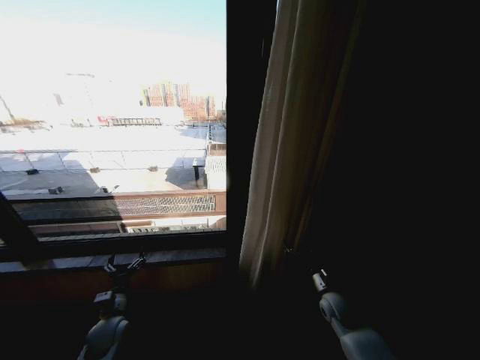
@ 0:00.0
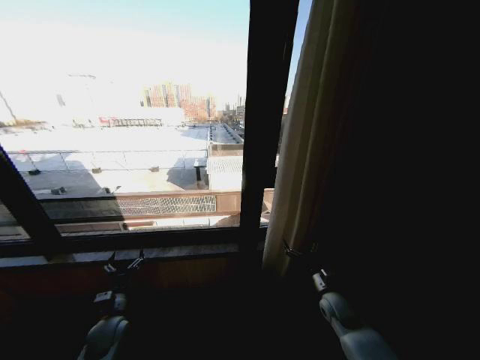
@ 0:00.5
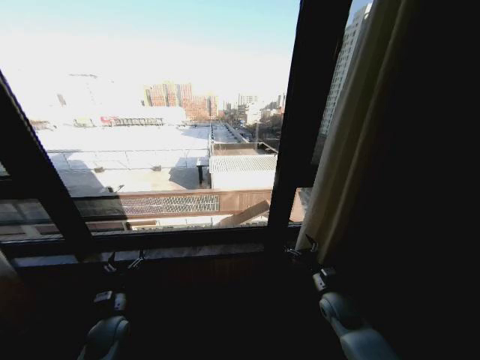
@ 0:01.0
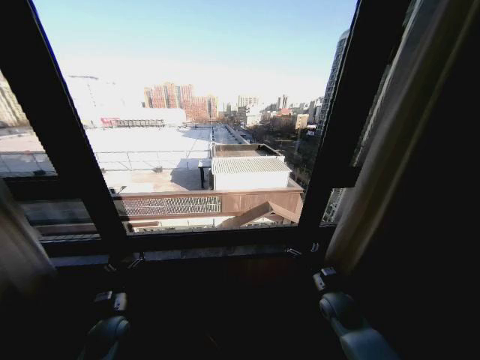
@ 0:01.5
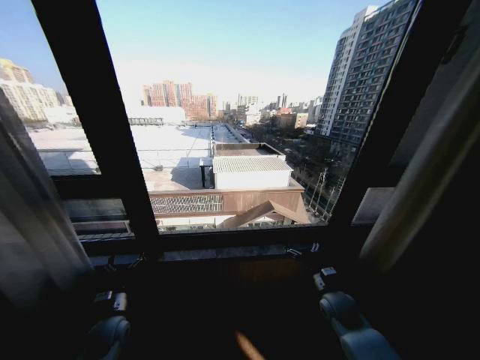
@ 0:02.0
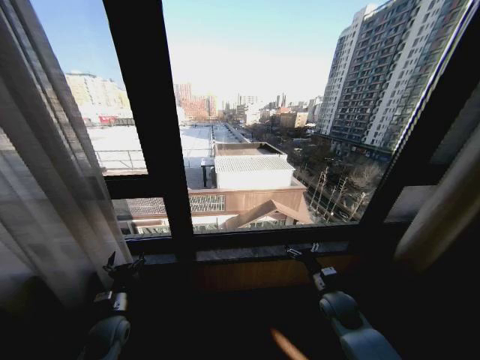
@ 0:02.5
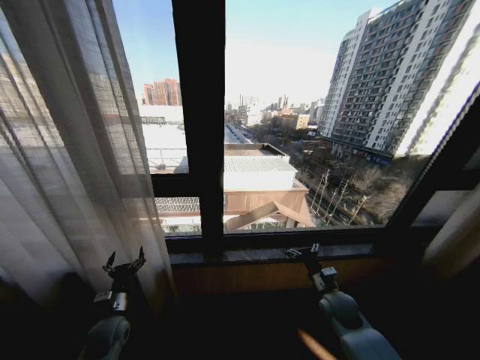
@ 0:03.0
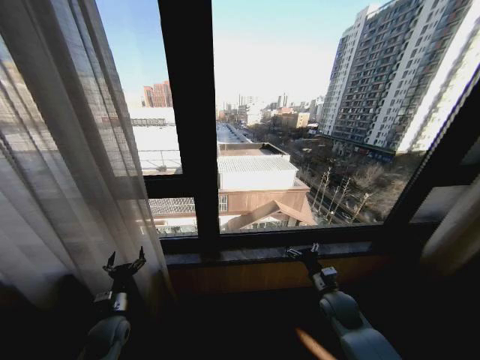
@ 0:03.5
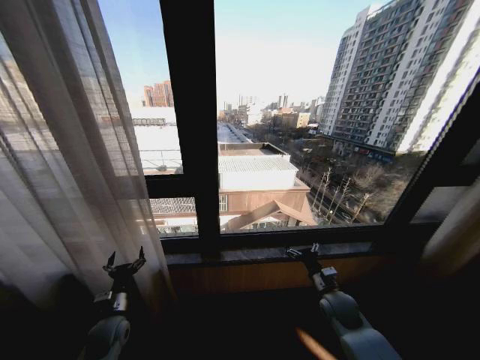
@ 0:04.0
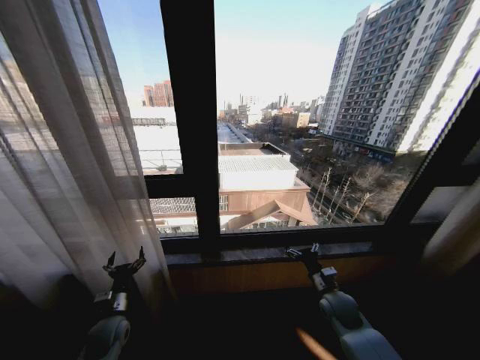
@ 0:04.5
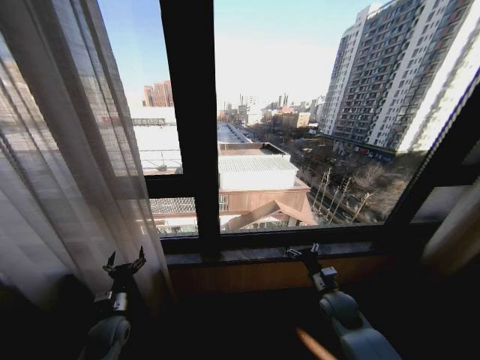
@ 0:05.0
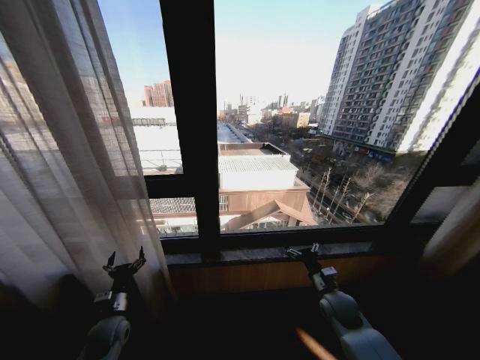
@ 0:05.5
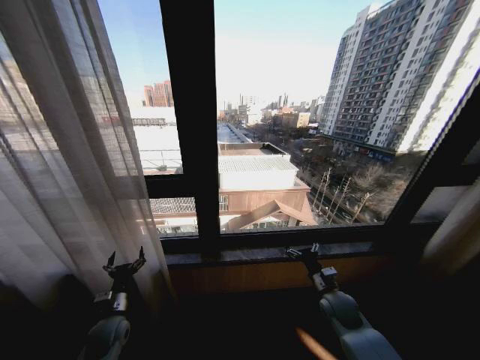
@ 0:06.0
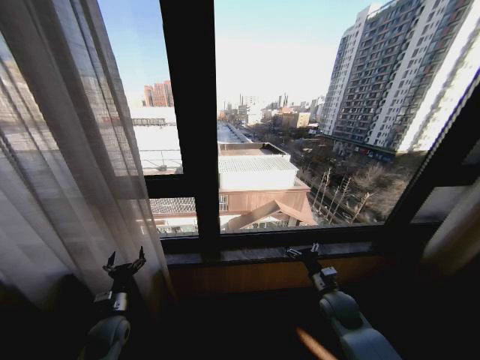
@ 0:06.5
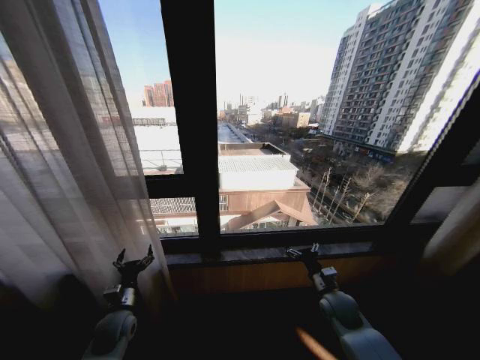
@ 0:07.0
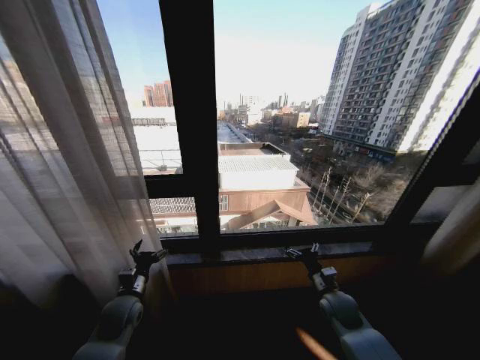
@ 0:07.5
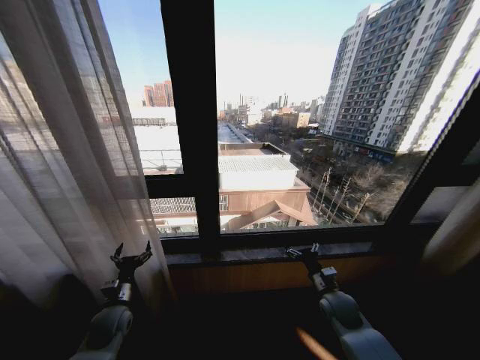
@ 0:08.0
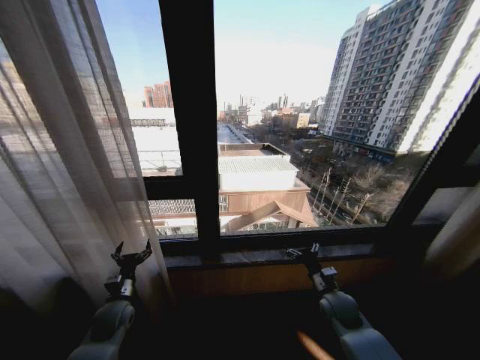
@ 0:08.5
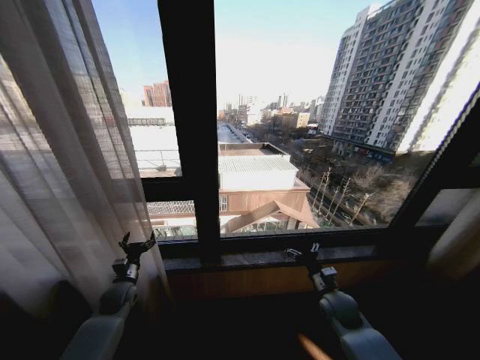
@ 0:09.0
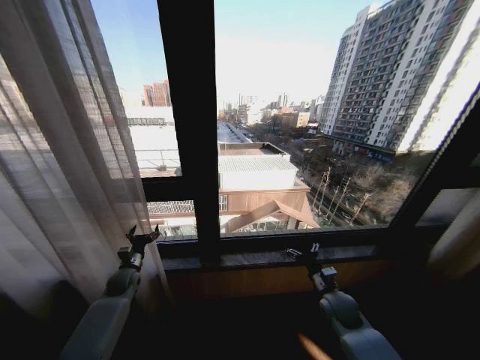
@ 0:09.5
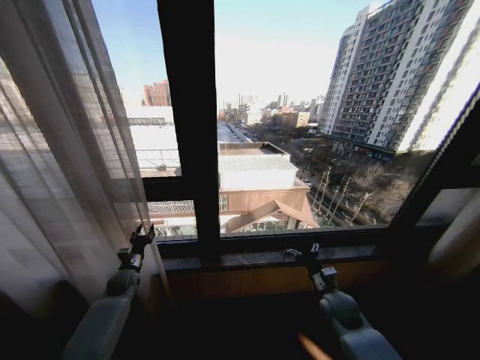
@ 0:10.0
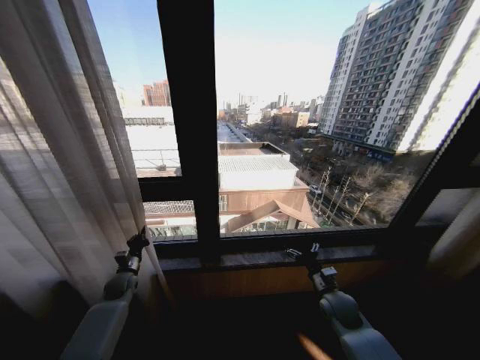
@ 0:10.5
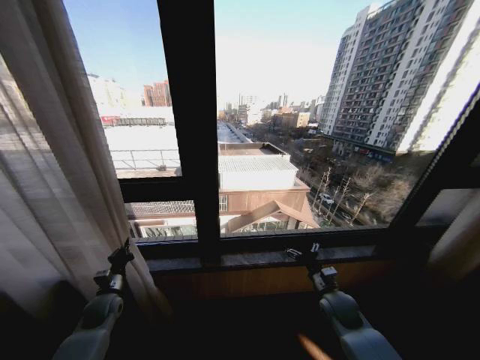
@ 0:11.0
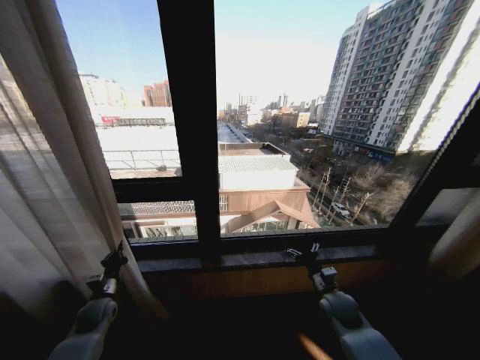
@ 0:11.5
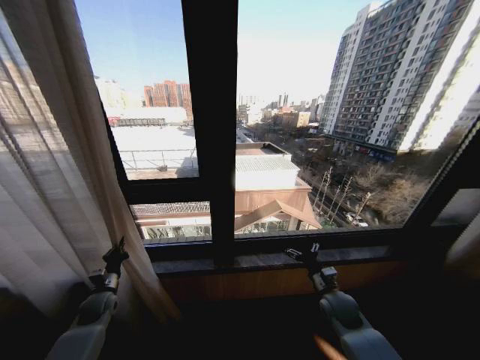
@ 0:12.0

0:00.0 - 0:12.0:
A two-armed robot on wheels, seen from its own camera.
Task of the whole recording: Open the curtains by pulling them apart, changing their state from closed to fully open.
0:04.0 - 0:06.0: Both grippers stay about where they are.
0:08.0 - 0:10.0: The left gripper goes roughly 15 cm forward, and closes its fingers.
0:10.0 - 0:12.0: The left gripper heads backward, covering about 5 cm, and closes up.

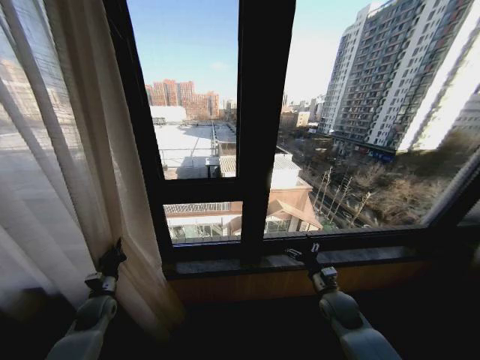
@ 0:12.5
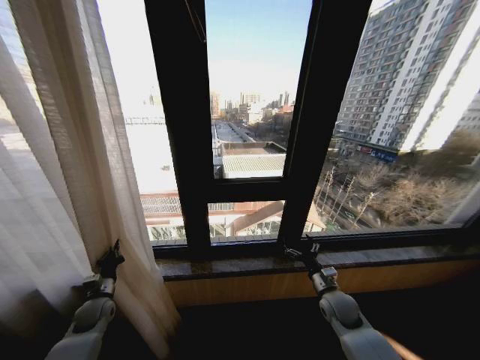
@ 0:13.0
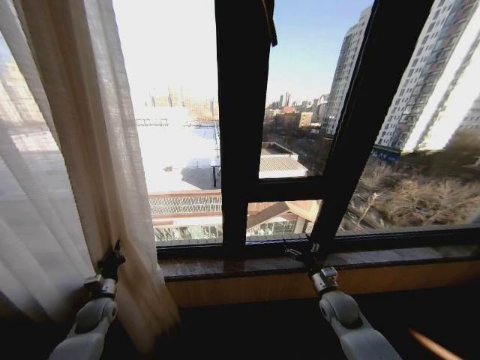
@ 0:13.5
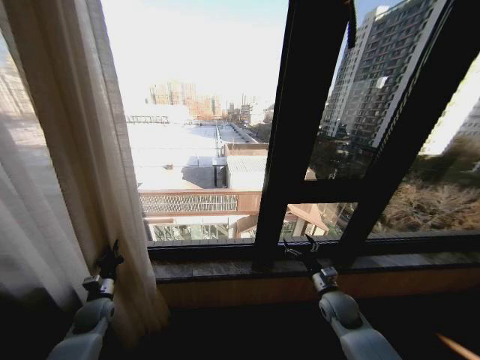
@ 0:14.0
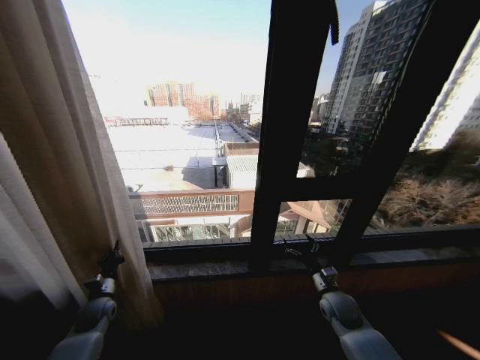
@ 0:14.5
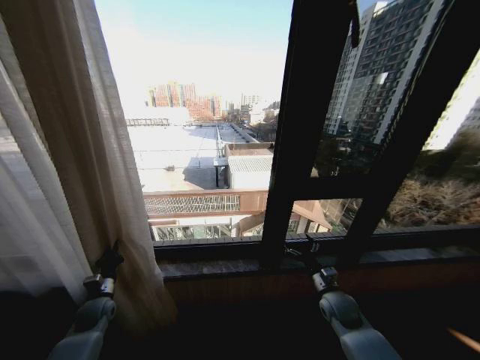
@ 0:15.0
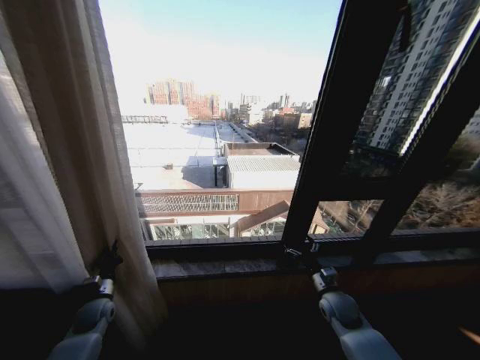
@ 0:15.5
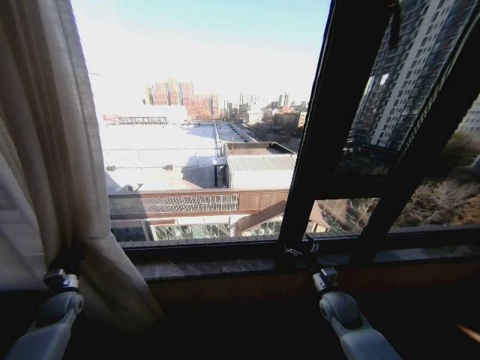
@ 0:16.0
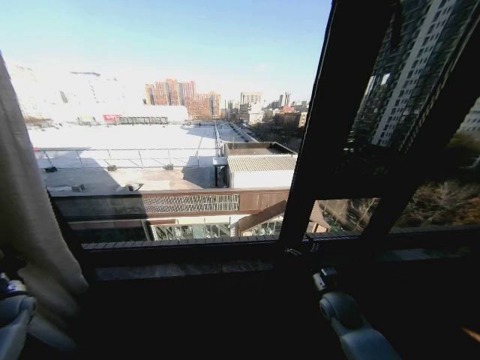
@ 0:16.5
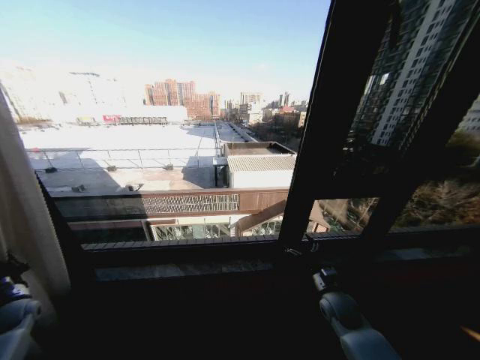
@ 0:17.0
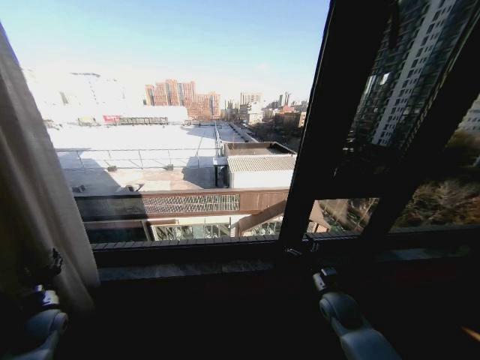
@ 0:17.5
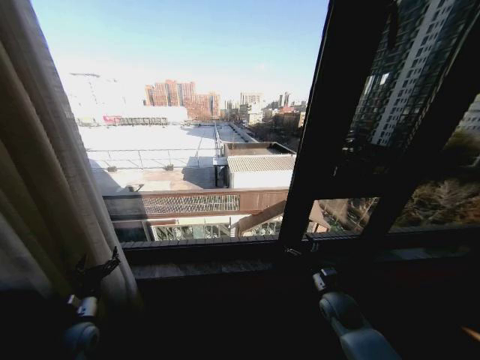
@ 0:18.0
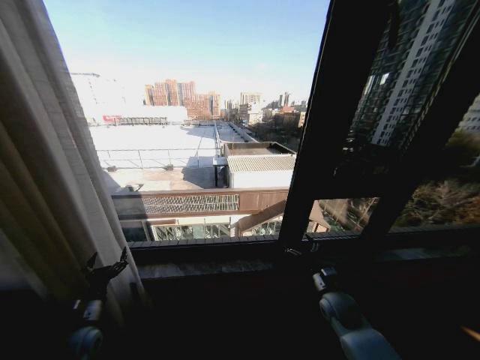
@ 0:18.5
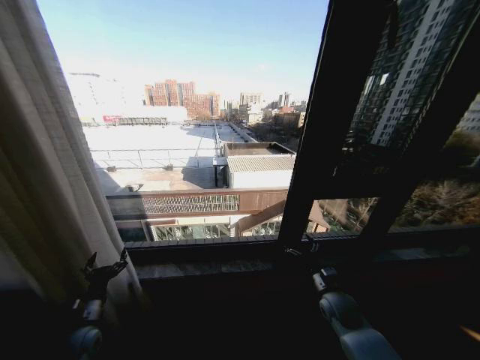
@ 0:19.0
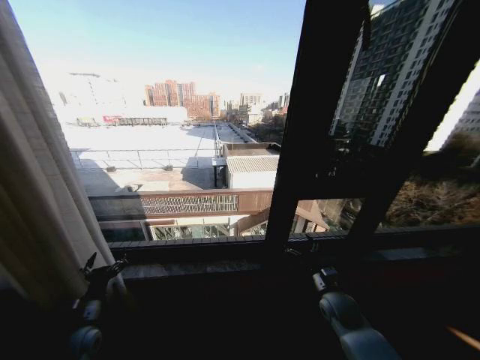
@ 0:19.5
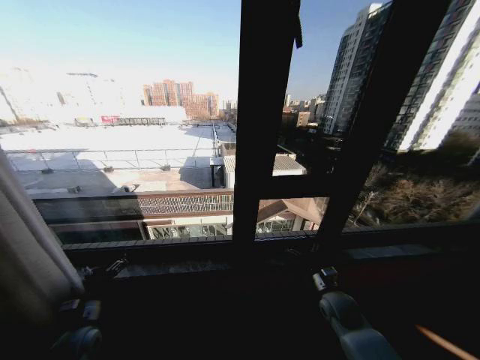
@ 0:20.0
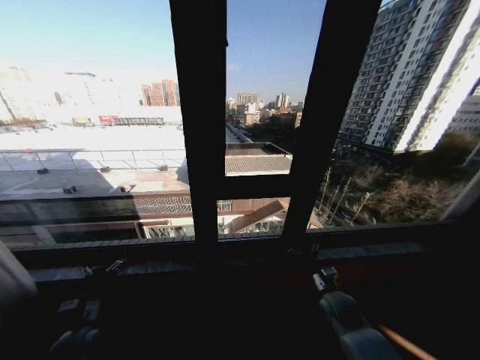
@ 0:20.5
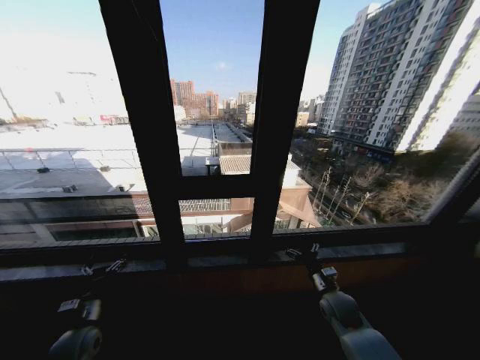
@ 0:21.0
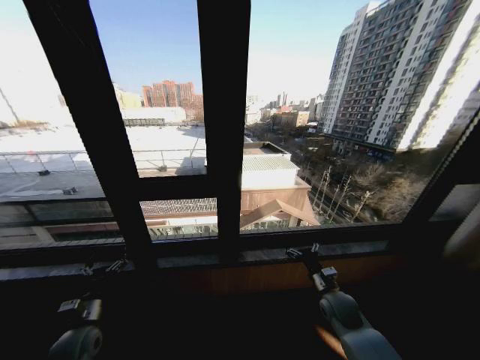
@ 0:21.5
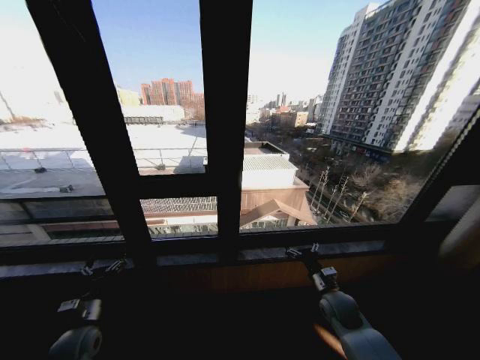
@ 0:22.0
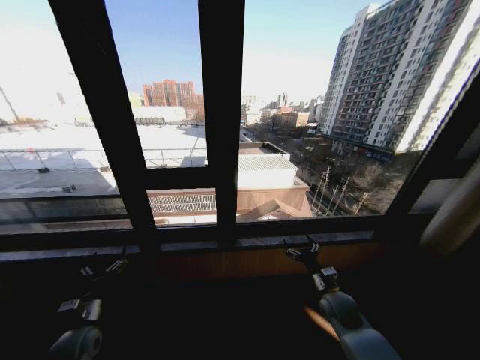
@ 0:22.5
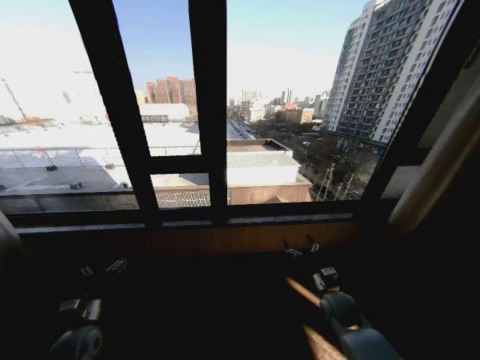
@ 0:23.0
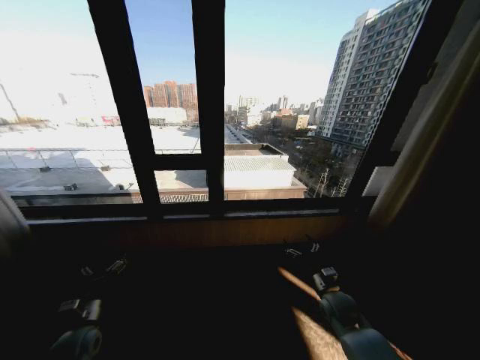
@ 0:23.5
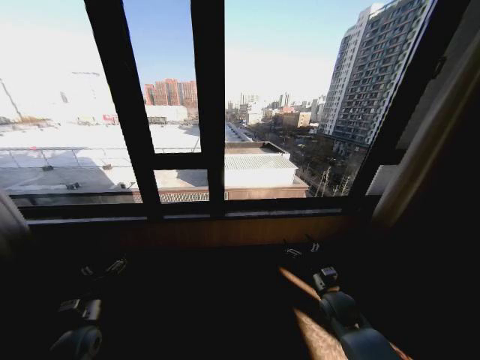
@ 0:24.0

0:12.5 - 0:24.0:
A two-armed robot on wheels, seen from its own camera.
Task of the whole recording: Open the curtains by pulling them apart, changing their state from closed to fully open.
0:14.5 - 0:16.5: The left gripper travels to the left by some 20 cm.
0:16.5 - 0:18.5: The left gripper goes approximately 25 cm to the right, and opens its fingers.

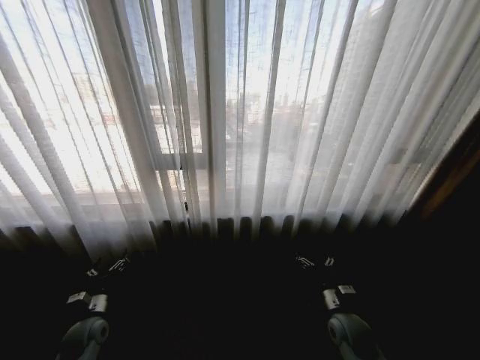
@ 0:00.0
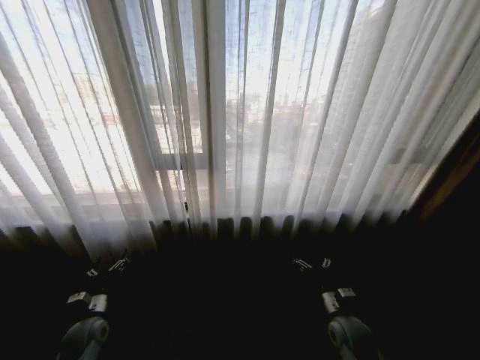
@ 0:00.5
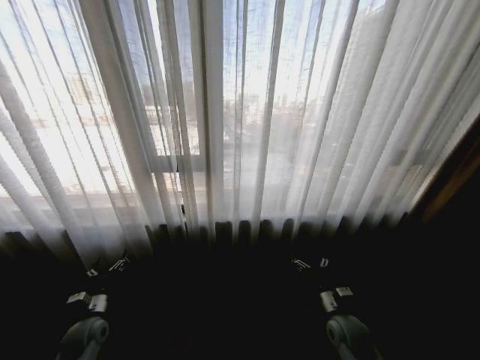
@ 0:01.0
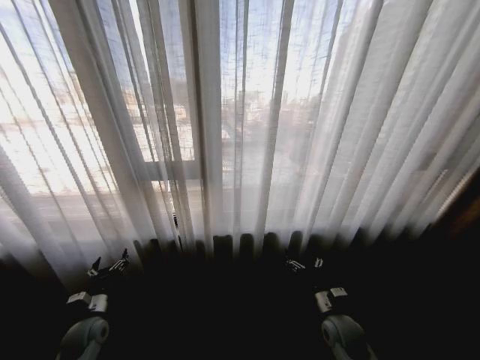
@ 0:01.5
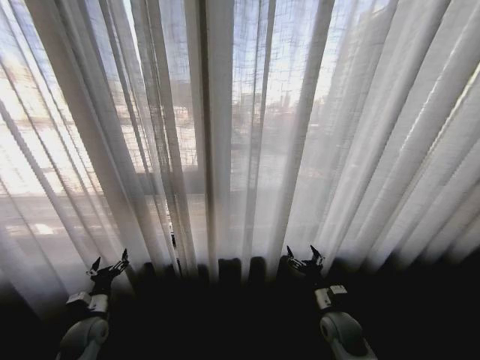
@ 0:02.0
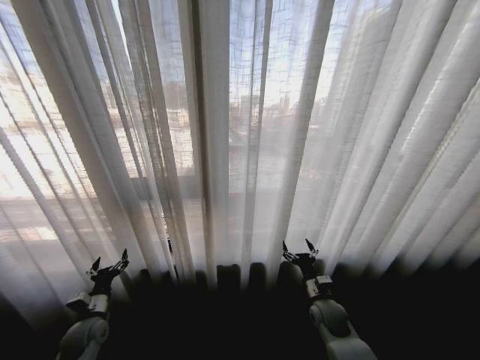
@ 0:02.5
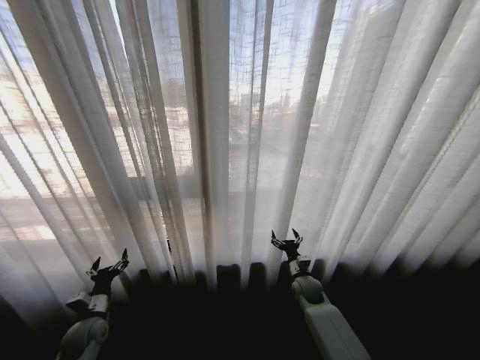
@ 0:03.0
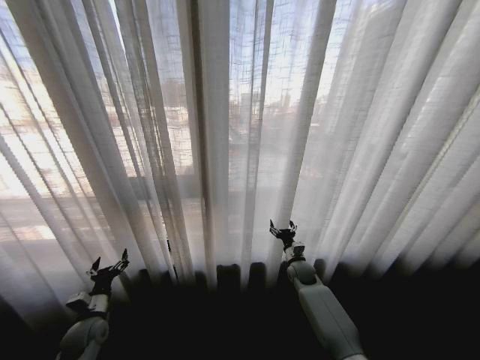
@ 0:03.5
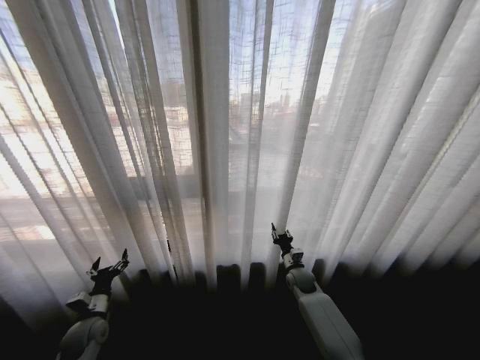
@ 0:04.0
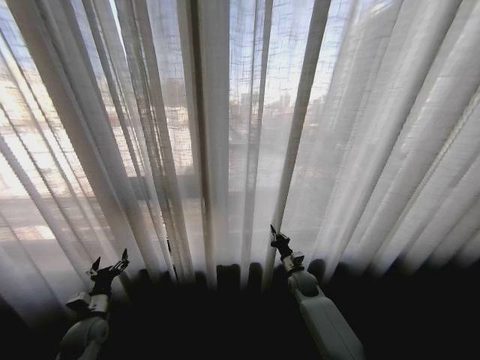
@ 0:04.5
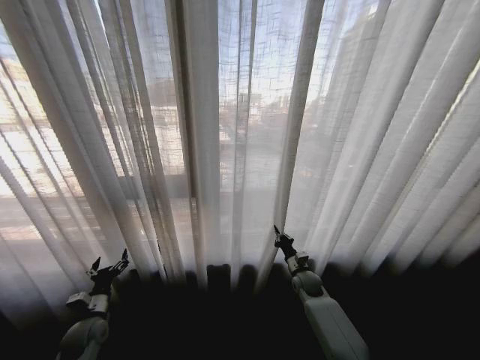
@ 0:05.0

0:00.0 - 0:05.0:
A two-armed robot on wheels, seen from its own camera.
Task of the whole recording: Open the curtains by pulling them apart, changing their state from closed to fully open.
0:02.5 - 0:05.0: The right gripper shifts some 10 cm forward, and closes.
